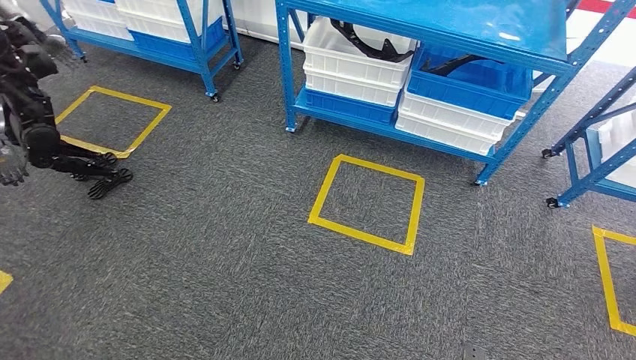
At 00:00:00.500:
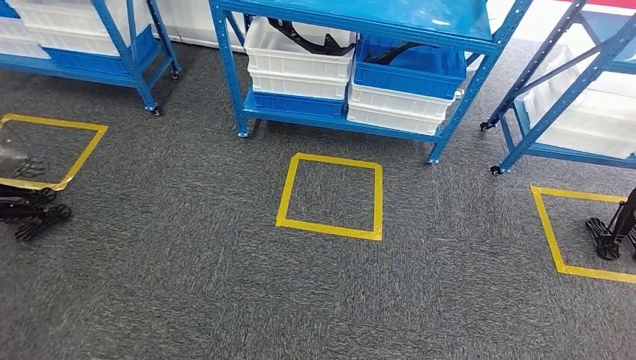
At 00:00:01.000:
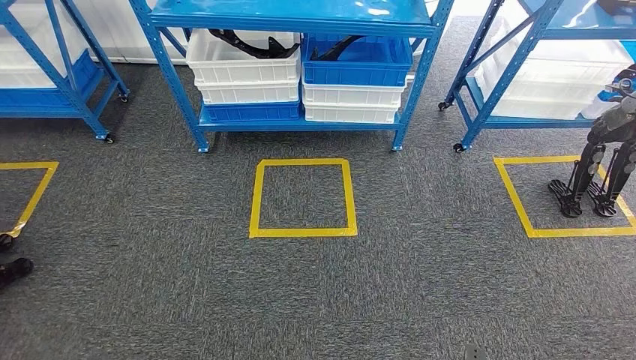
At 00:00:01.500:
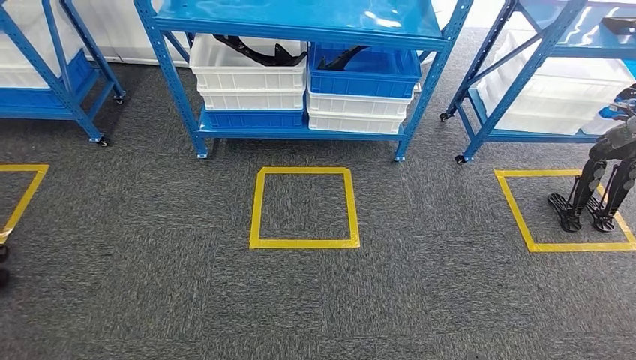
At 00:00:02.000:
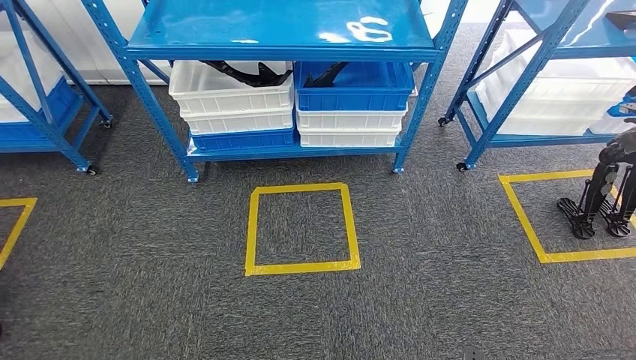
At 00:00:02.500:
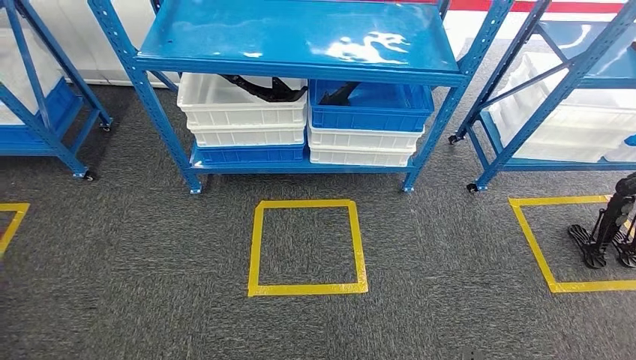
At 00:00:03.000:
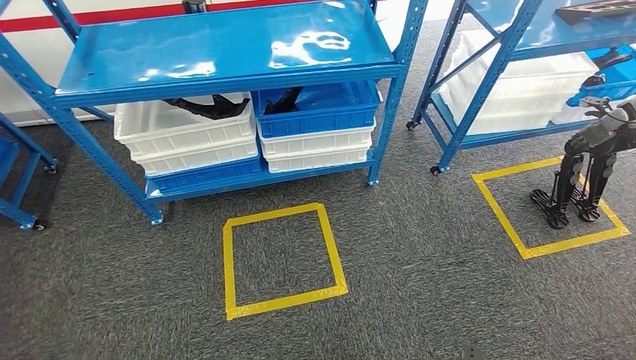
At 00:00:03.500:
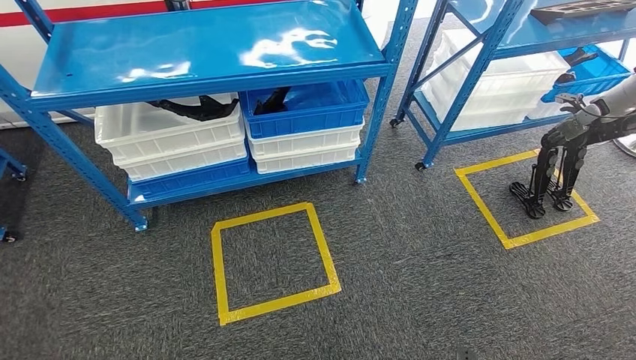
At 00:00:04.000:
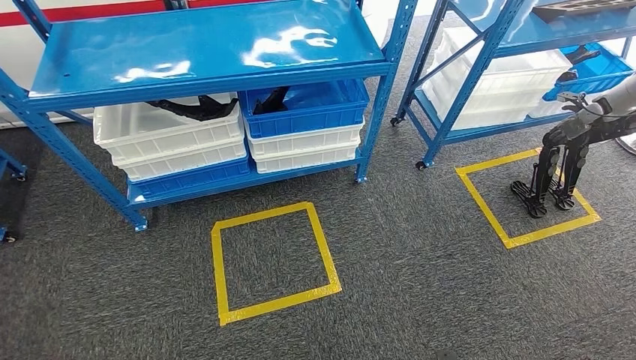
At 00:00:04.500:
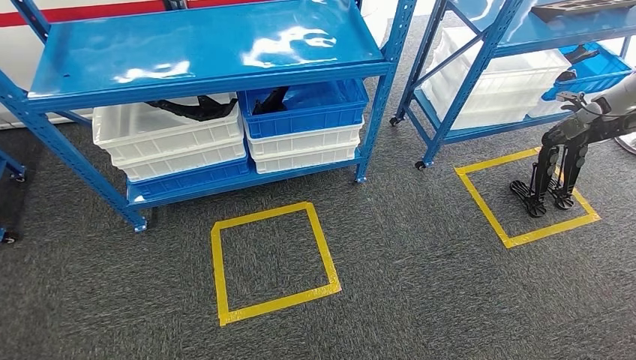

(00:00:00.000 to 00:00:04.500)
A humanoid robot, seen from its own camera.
Step, 00:00:00.000 - 00:00:04.500: Return to the initial position at the shelf.
